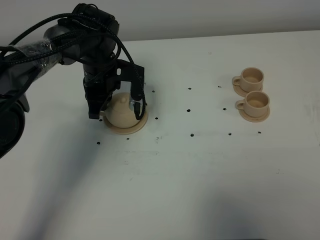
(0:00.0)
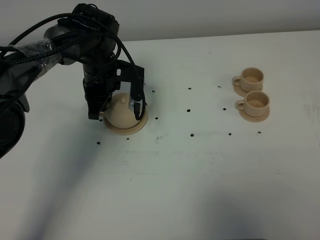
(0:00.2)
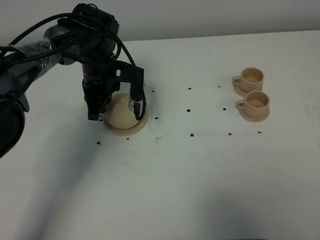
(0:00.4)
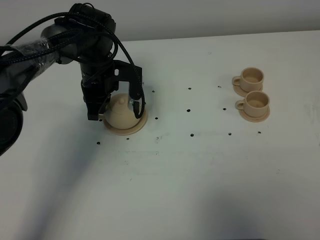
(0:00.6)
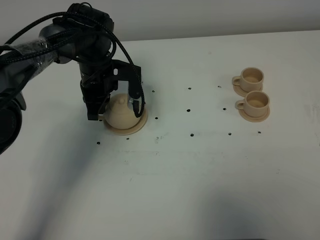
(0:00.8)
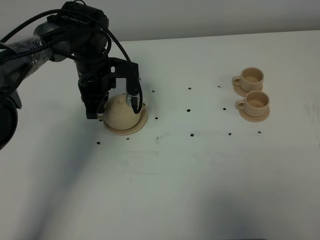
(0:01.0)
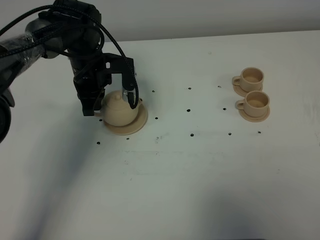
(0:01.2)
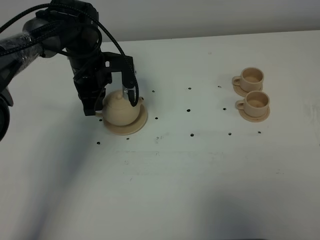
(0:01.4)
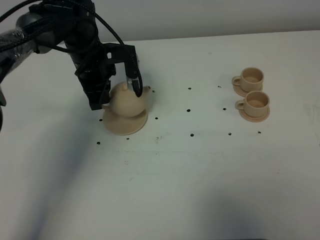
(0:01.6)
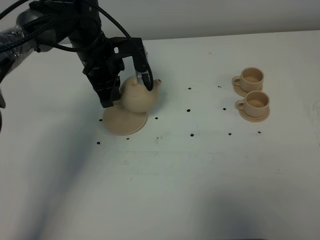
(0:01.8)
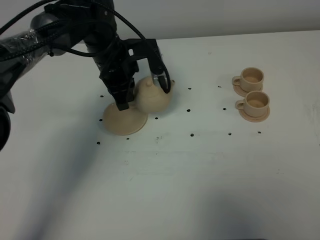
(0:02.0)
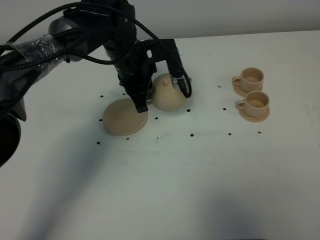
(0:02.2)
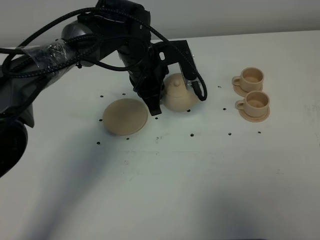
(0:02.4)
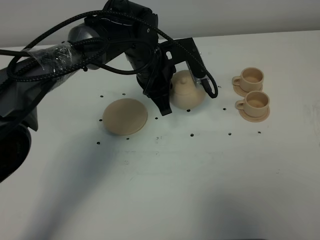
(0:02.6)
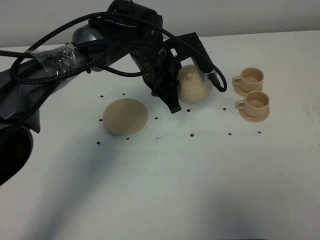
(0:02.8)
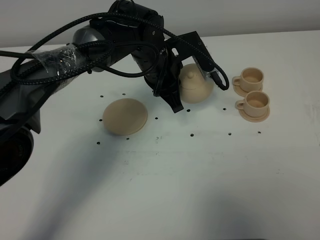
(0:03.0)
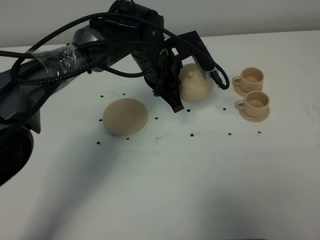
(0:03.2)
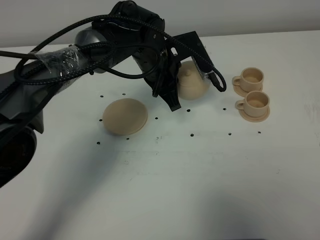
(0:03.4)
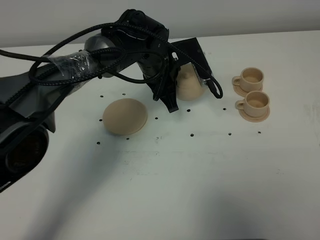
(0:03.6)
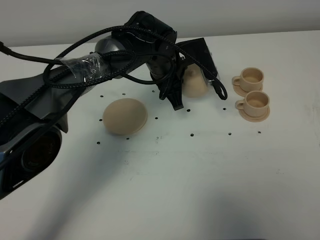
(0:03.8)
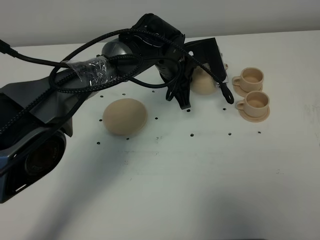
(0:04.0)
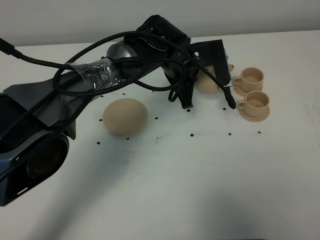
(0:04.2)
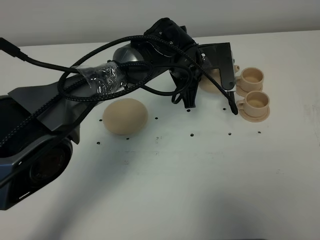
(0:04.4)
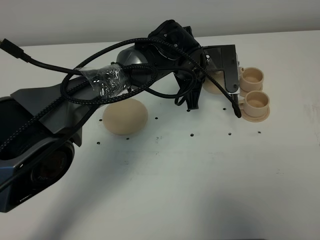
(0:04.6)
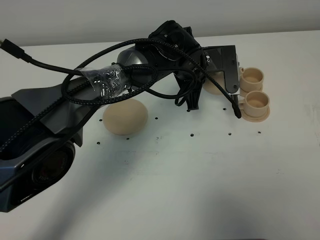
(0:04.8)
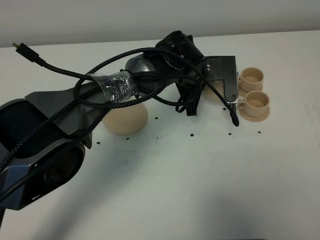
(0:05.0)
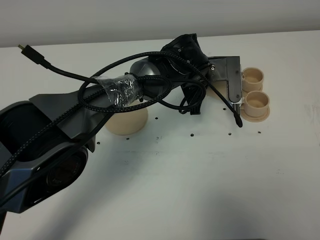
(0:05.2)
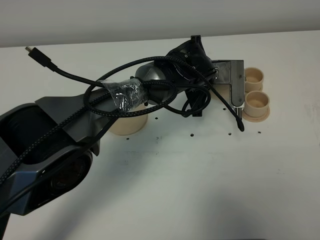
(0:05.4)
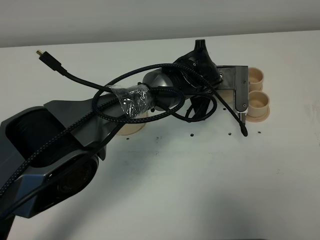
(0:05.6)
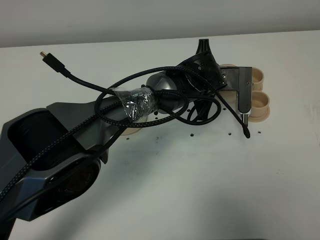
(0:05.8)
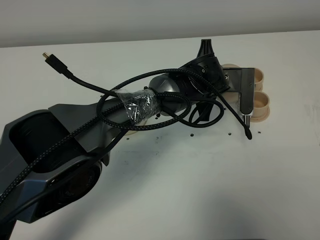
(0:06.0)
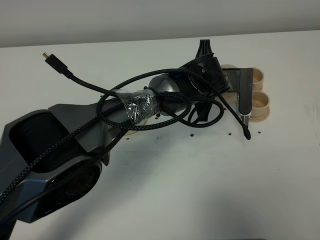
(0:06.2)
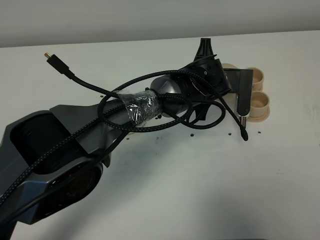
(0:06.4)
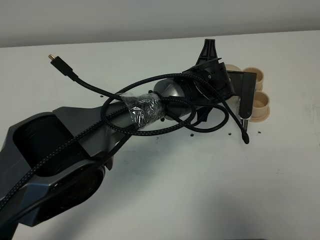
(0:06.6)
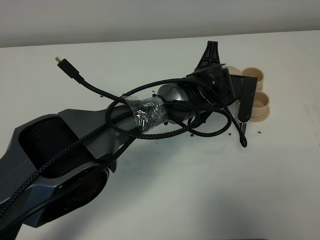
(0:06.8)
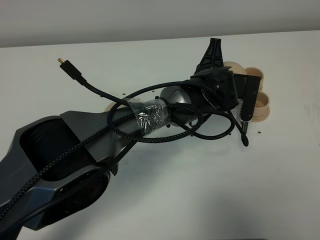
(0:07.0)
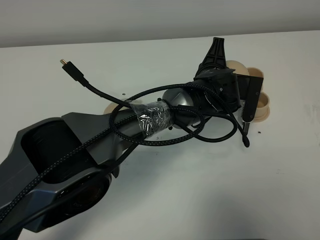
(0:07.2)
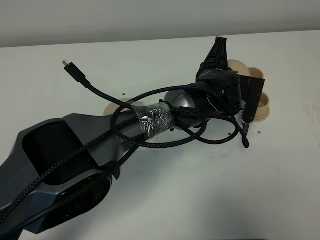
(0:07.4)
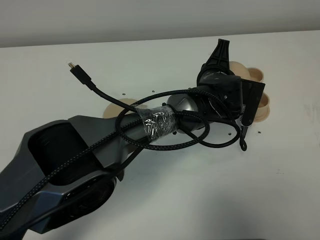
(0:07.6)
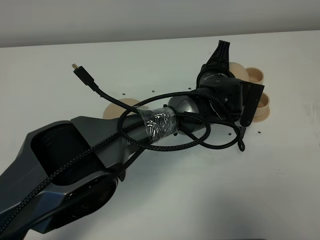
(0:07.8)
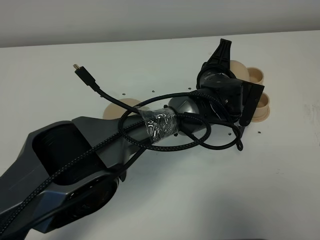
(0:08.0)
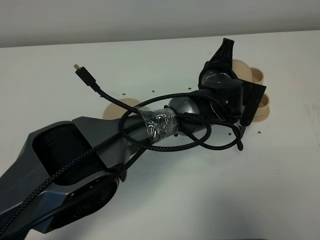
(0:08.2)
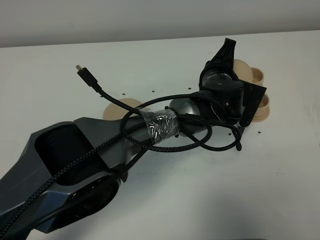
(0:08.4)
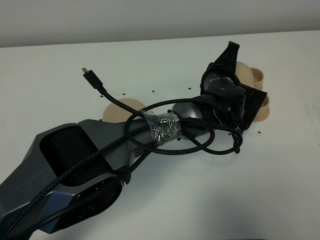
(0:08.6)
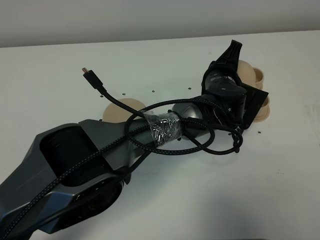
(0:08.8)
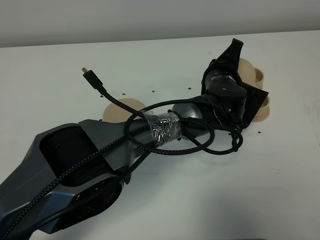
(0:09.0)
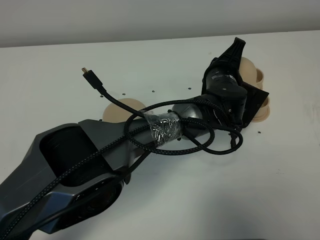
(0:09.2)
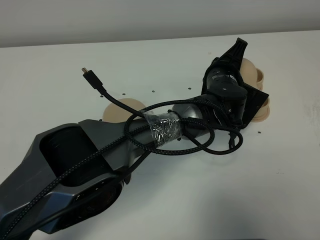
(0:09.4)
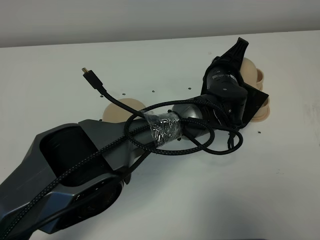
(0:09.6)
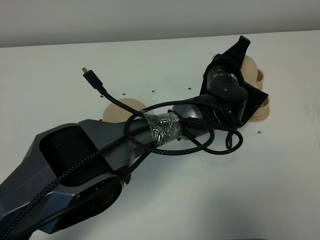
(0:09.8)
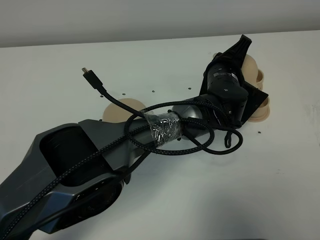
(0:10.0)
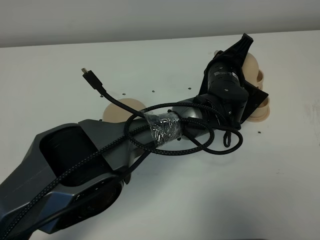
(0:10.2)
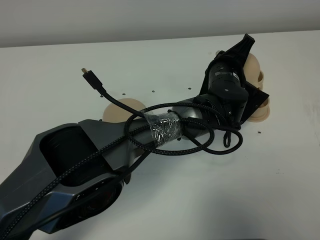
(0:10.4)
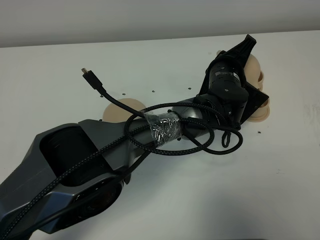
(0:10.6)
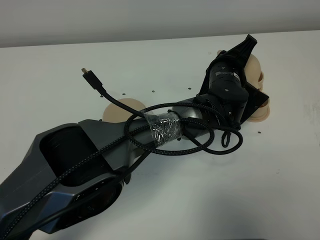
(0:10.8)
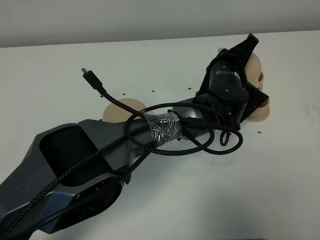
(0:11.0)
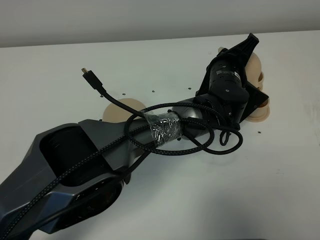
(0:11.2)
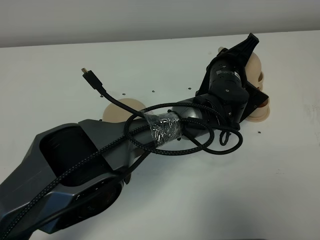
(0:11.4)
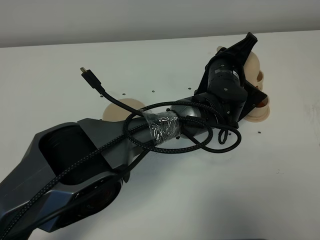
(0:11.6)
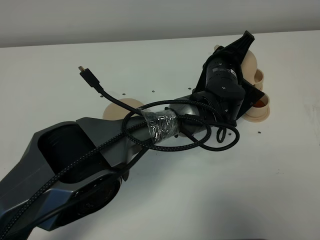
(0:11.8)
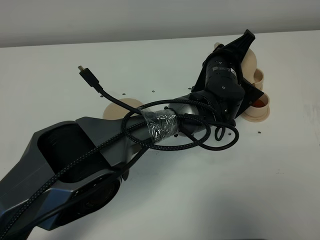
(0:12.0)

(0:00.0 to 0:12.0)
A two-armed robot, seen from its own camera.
Task of the whole recording: grasp the brown teapot and pour the tea into the two brown teacups one by one, put the brown teapot back in its original place.
0:00.0 - 0:01.6: The grippers stay close to where they were, moving slightly.
0:01.6 - 0:03.0: The left gripper heads to the right, covering approximately 15 cm.
0:03.0 - 0:04.4: The left gripper shifts approximately 5 cm to the right.
0:04.4 - 0:06.0: The left gripper ends up roughly 5 cm from where it was.
0:07.6 - 0:09.0: The grippers stay close to where they were, moving slightly.
0:09.0 - 0:12.0: The grippers move only a little.

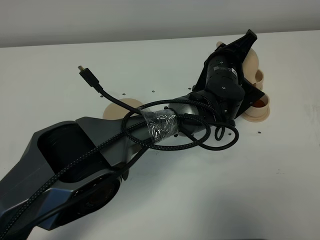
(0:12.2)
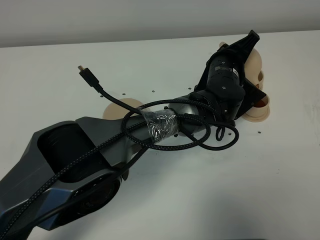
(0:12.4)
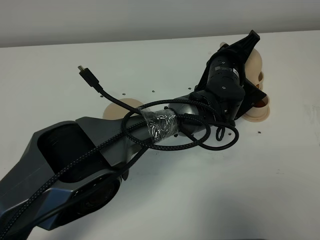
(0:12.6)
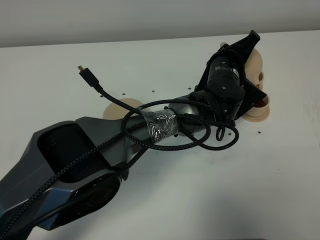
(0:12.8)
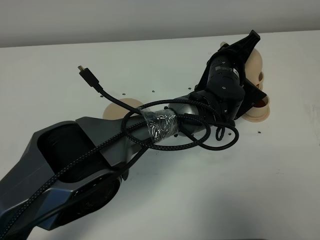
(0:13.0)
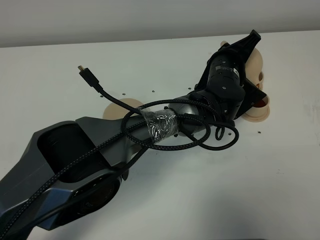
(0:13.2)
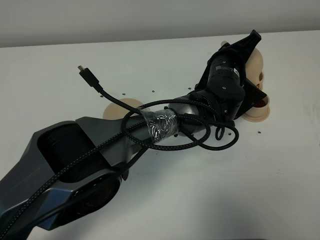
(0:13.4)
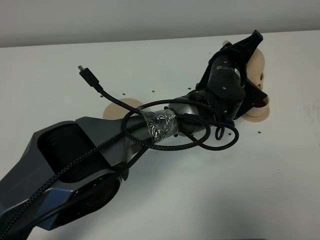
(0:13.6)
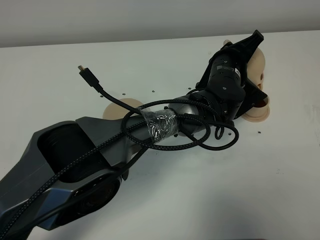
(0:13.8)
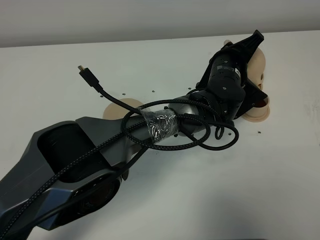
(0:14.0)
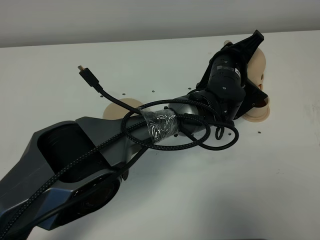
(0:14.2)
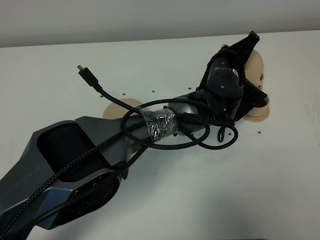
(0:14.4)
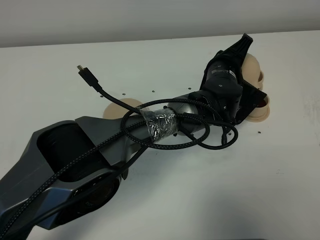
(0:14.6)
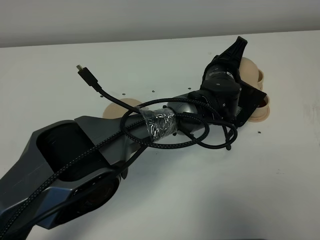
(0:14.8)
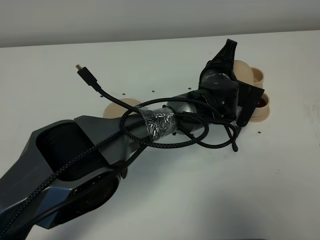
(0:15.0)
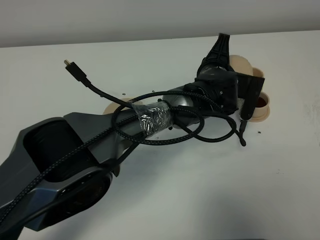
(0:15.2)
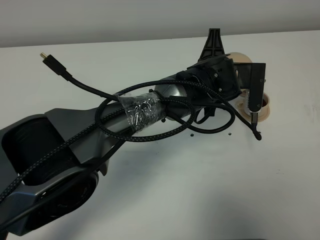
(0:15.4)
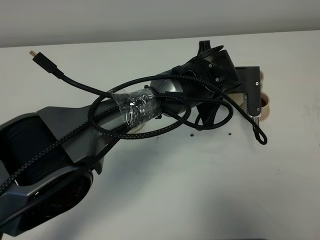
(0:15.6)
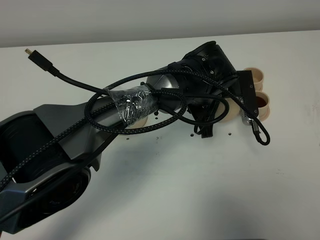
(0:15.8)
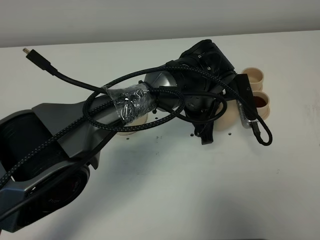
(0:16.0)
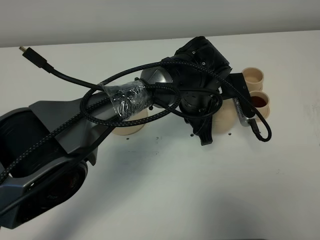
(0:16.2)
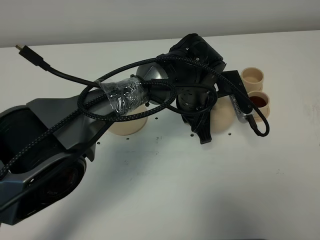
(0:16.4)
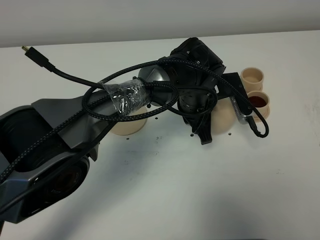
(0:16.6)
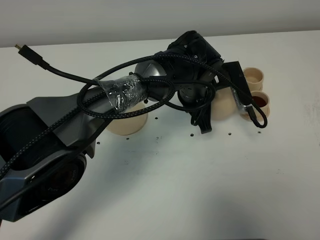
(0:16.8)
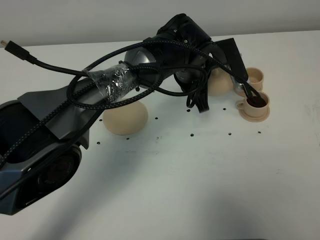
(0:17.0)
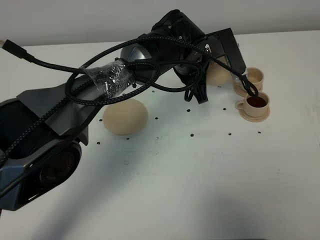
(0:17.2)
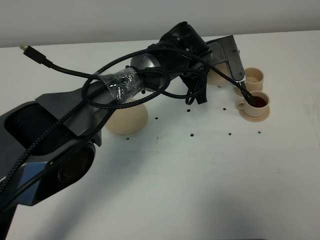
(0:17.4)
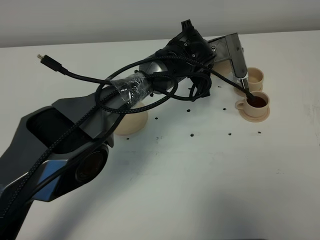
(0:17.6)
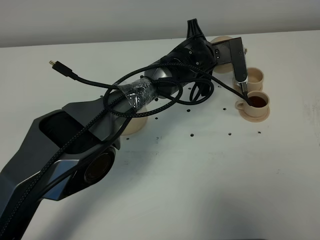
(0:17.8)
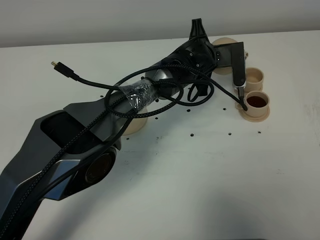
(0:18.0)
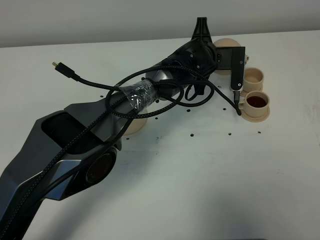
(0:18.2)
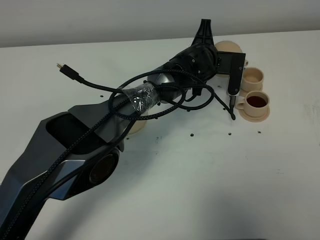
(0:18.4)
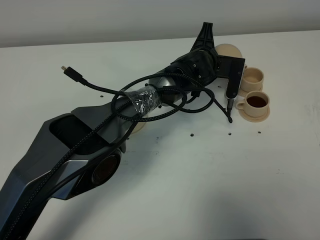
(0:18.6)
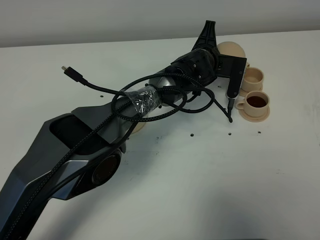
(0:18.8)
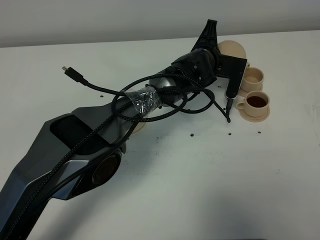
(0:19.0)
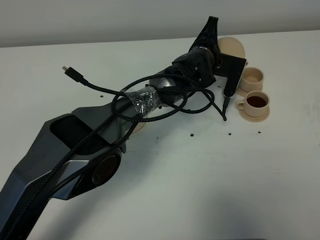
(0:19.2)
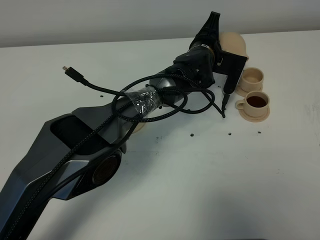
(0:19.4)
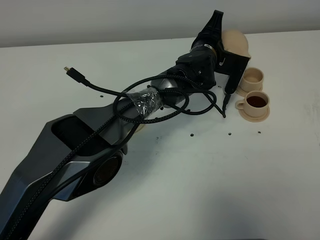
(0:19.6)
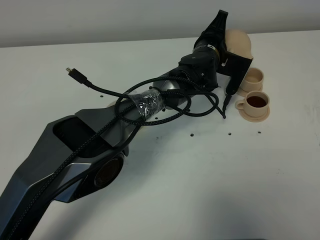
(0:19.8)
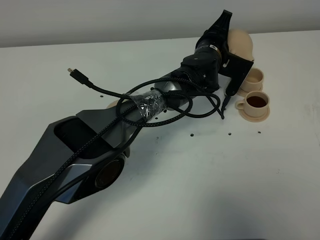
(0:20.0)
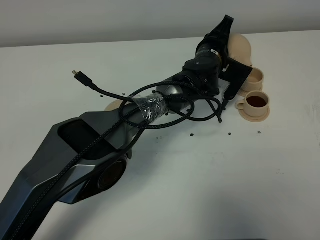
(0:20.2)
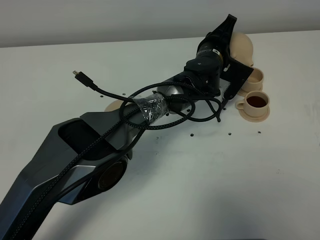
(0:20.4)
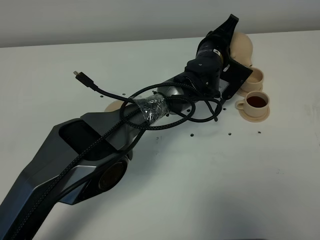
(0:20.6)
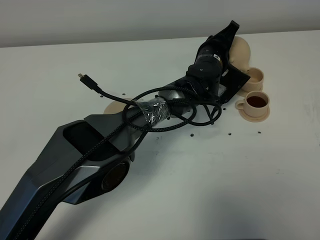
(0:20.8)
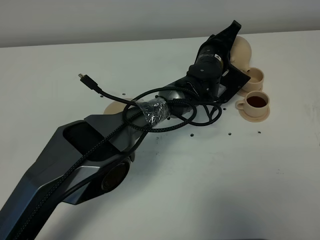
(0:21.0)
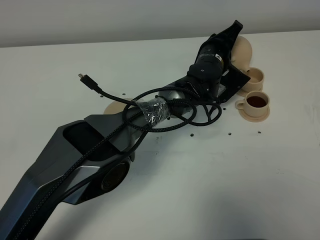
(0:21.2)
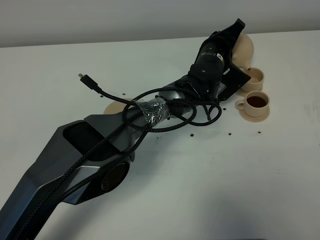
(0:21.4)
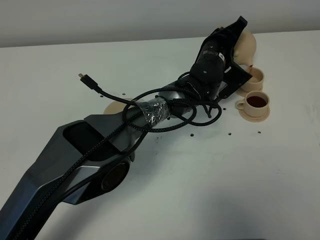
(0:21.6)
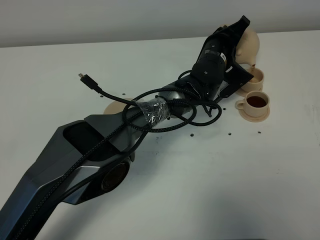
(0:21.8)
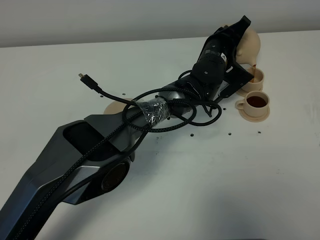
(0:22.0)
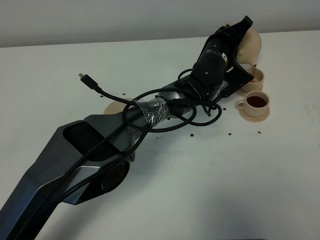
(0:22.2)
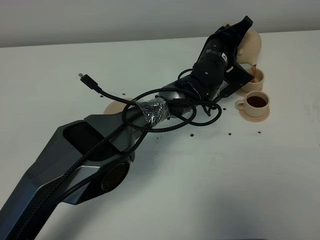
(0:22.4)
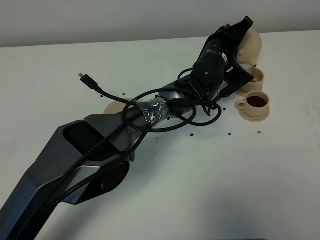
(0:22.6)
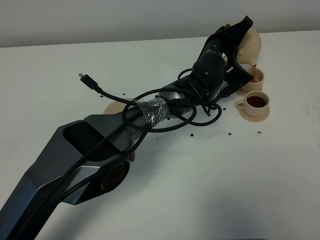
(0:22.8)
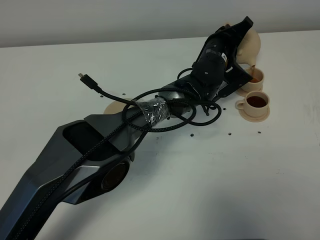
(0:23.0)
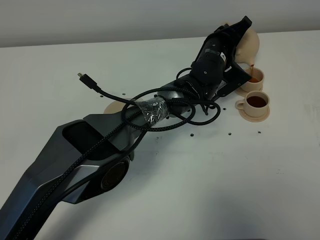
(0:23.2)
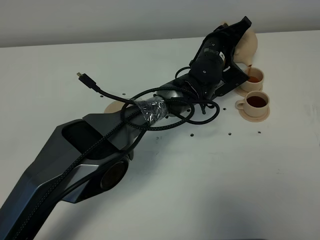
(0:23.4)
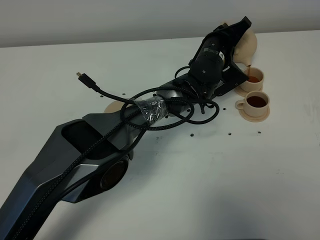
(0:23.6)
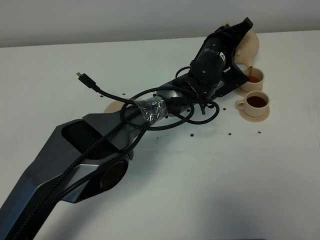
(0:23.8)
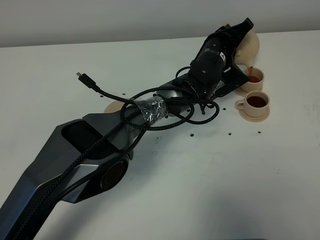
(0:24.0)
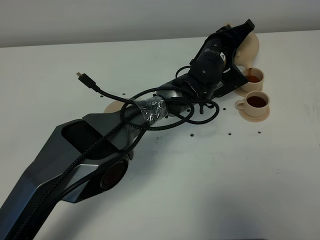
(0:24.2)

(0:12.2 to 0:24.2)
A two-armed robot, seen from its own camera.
Task of the whole recording: grasp the brown teapot and pour the tea into the two brown teacups one by one, put the brown teapot back in its original place.
0:12.2 - 0:13.8: The two grippers keep their place.
0:16.6 - 0:18.2: The left gripper heads forward, covering about 10 cm.
0:19.8 - 0:21.2: The grippers make only small movements.
0:21.2 - 0:24.2: The grippers make only small movements.
